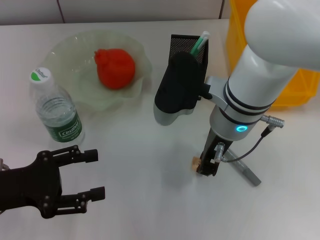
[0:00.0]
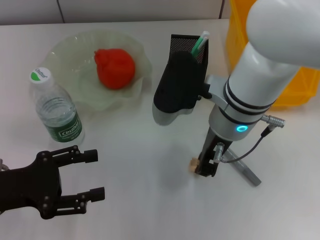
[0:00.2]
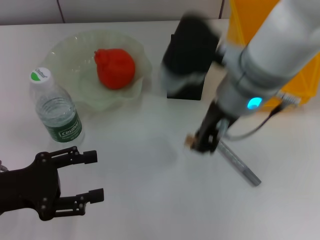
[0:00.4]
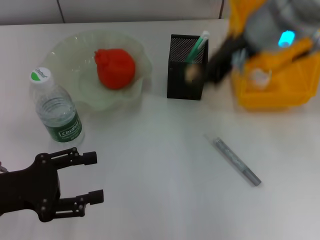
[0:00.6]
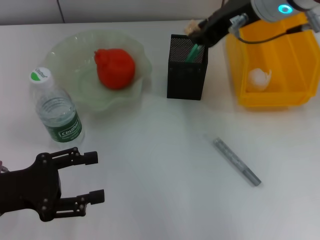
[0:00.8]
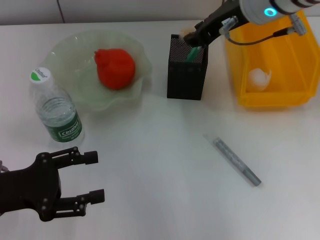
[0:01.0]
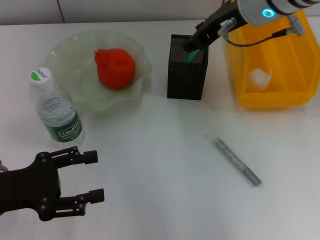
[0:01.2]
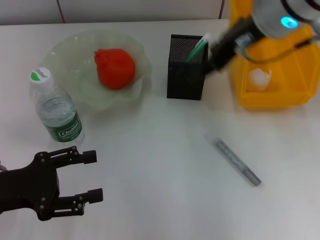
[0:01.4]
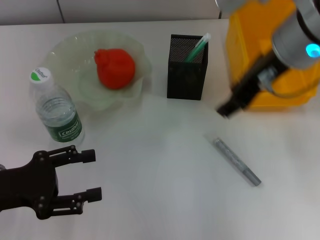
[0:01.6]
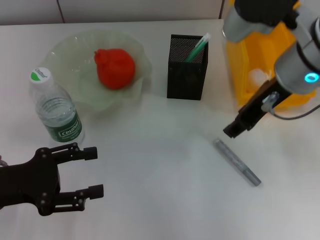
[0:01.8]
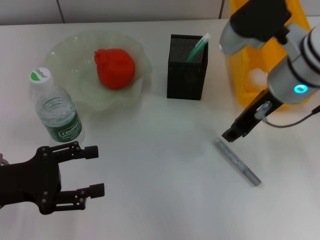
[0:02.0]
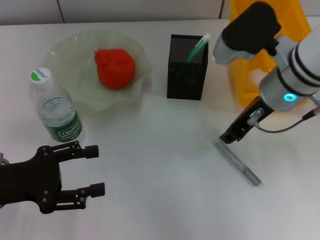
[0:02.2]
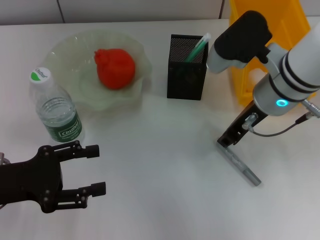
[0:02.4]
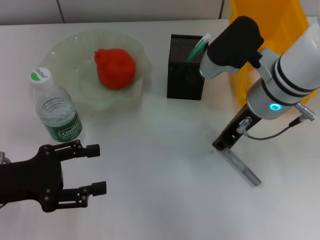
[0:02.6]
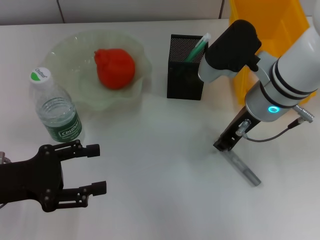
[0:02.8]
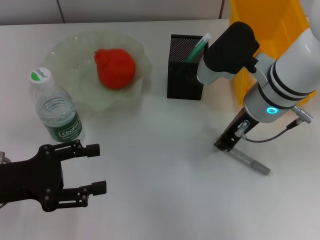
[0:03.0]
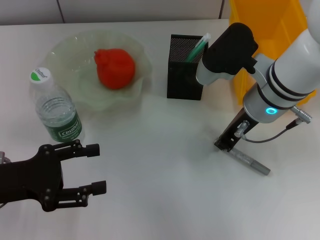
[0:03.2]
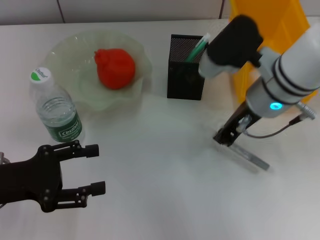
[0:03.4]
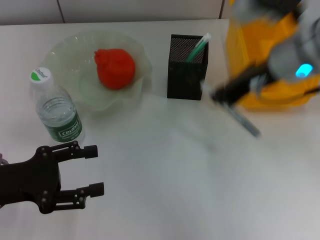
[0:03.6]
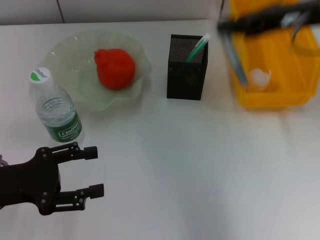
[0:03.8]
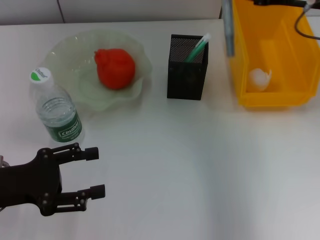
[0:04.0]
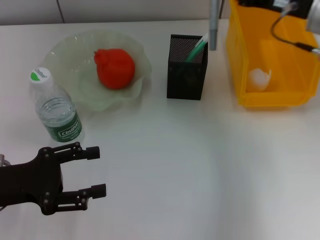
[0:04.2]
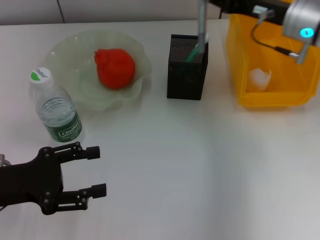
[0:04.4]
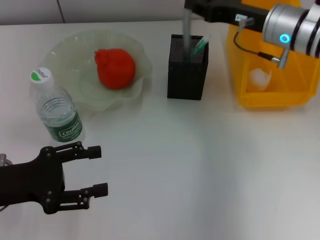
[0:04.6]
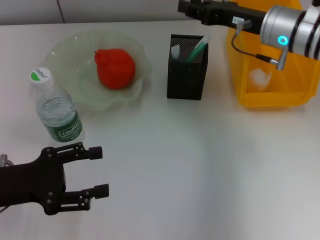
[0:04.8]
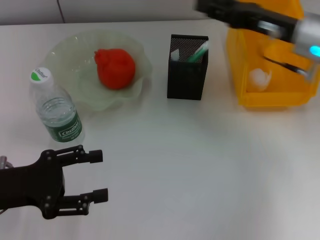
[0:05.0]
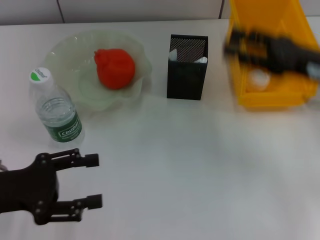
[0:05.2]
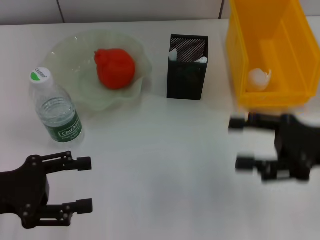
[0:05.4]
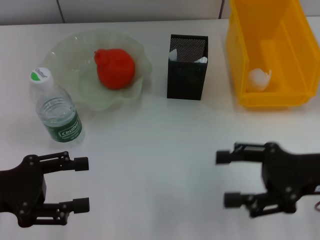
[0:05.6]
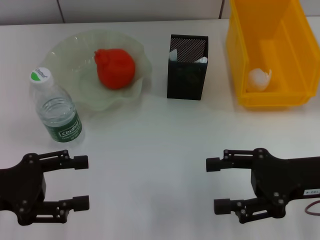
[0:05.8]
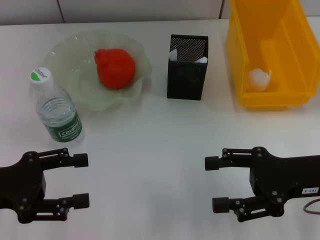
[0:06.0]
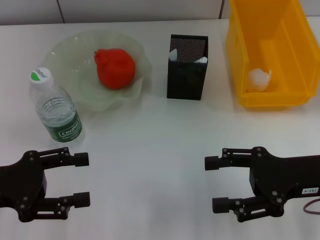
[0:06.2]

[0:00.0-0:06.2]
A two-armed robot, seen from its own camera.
Step, 0:00.0 to 0:01.0: Put the eraser into the pen holder with the right hand.
Step, 0:01.2 to 0:03.2: Grab the gray glue with the right hand.
Step, 0:03.4 to 0:04.6: Place the gray glue into the pen holder with the right hand.
0:00.0 to 0:01.6: The right gripper goes about 15 cm upward and to the right, and opens its fingers.
0:01.6 to 0:03.2: The right gripper moves downward, roughly 10 cm, and closes.
0:03.2 to 0:04.6: The right gripper moves forward and to the right, some 10 cm, and moves some 10 cm upward and comes back.
0:04.6 to 0:06.2: The right gripper travels backward by about 20 cm, and opens up.

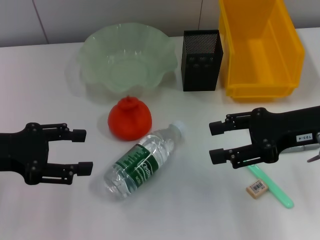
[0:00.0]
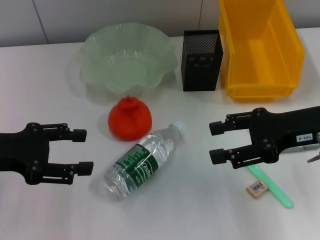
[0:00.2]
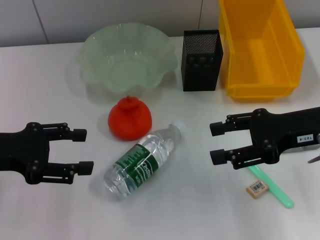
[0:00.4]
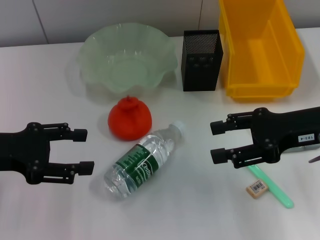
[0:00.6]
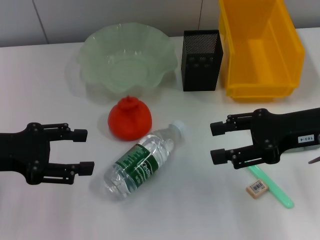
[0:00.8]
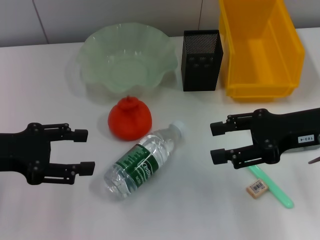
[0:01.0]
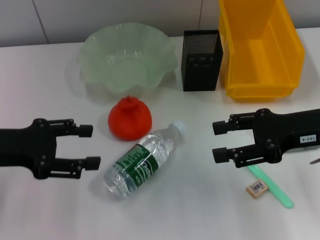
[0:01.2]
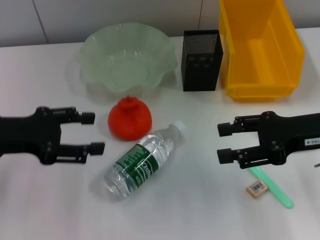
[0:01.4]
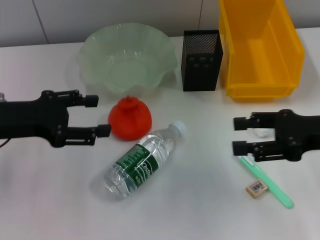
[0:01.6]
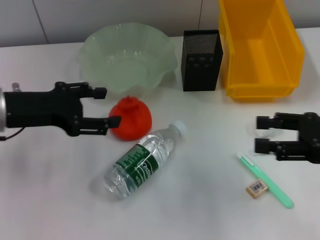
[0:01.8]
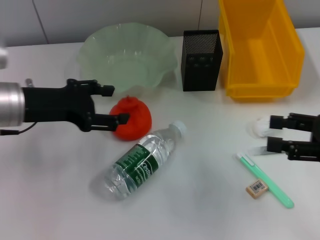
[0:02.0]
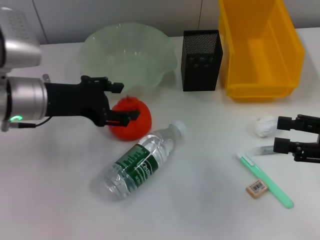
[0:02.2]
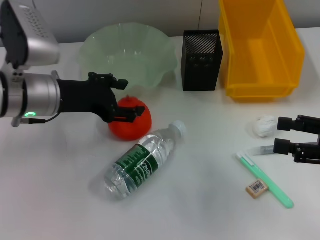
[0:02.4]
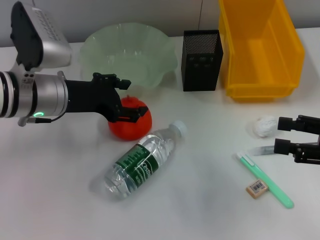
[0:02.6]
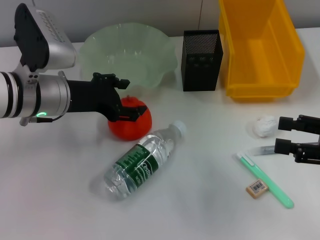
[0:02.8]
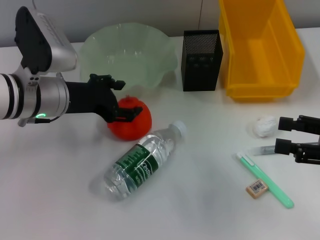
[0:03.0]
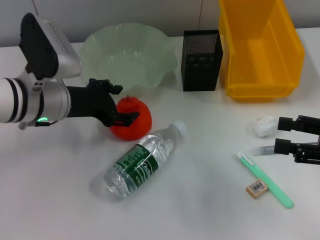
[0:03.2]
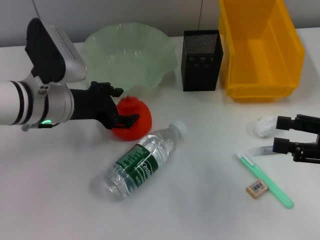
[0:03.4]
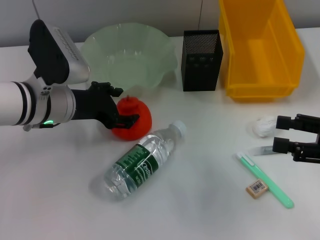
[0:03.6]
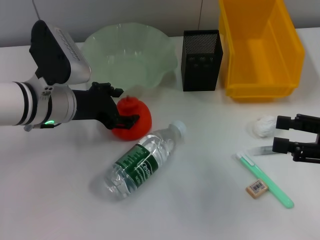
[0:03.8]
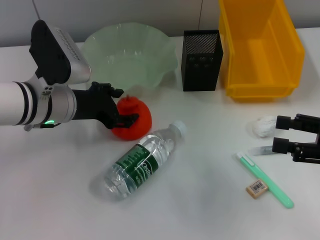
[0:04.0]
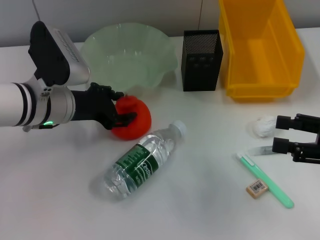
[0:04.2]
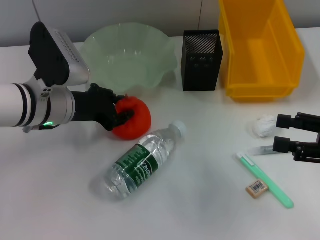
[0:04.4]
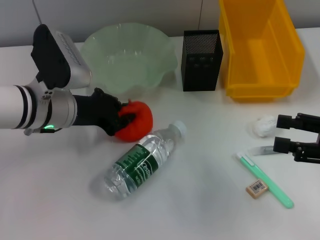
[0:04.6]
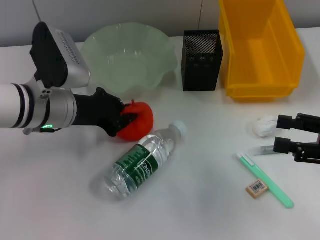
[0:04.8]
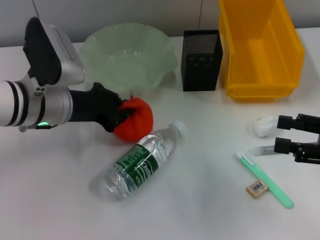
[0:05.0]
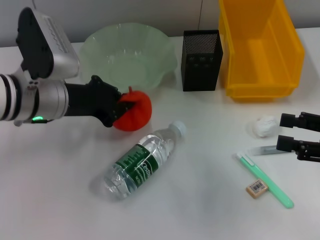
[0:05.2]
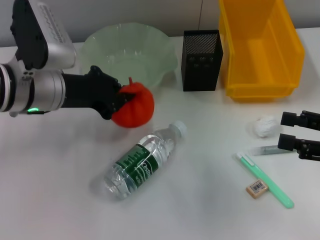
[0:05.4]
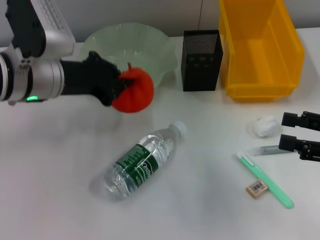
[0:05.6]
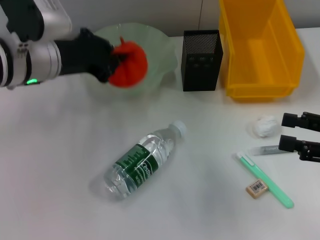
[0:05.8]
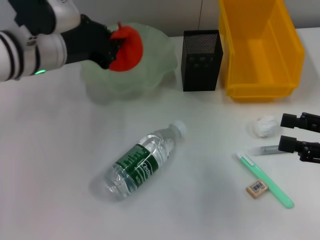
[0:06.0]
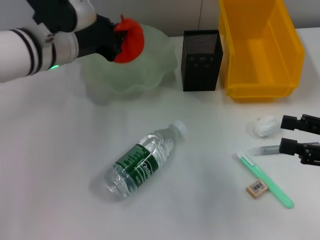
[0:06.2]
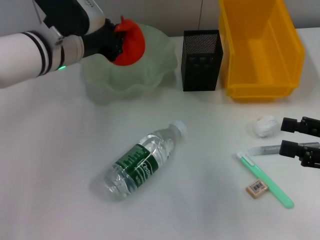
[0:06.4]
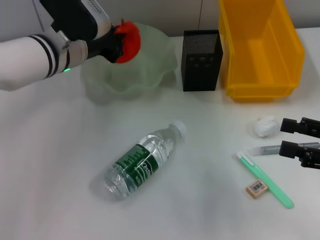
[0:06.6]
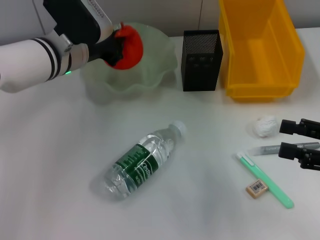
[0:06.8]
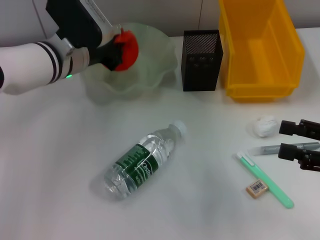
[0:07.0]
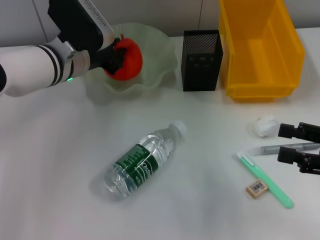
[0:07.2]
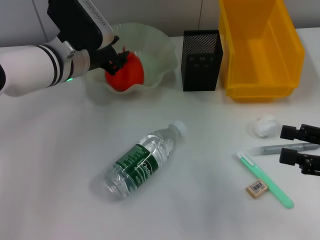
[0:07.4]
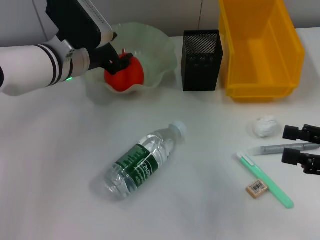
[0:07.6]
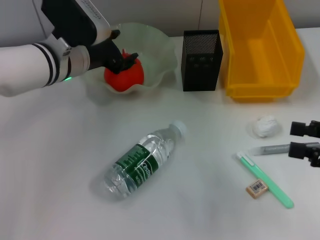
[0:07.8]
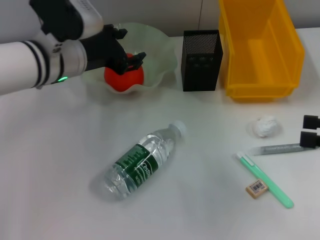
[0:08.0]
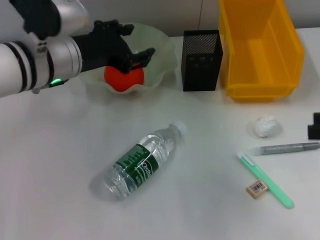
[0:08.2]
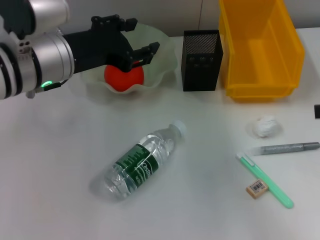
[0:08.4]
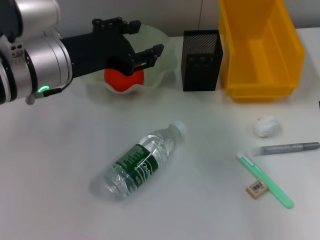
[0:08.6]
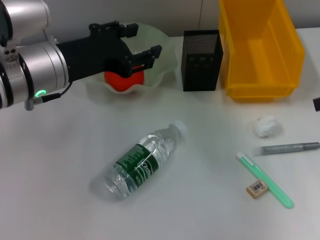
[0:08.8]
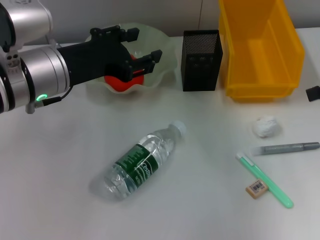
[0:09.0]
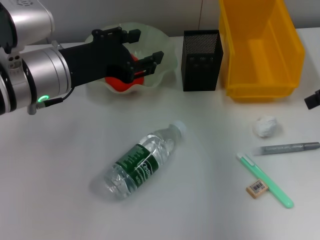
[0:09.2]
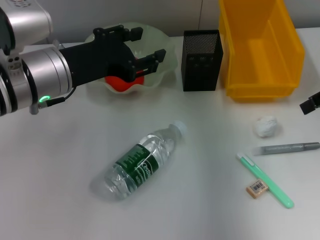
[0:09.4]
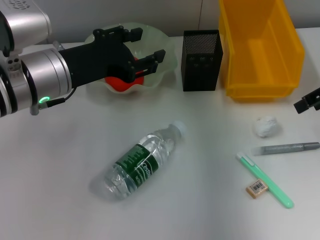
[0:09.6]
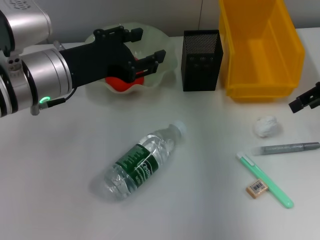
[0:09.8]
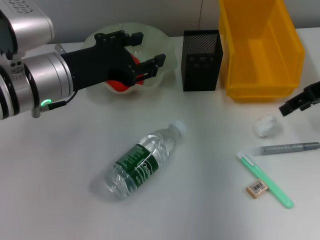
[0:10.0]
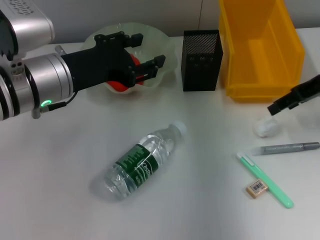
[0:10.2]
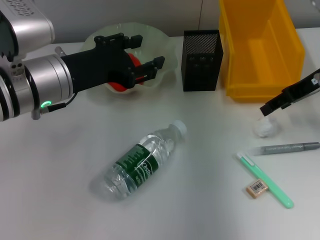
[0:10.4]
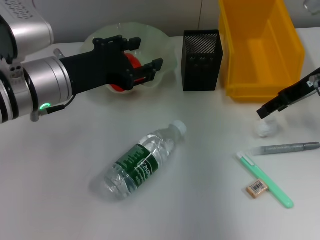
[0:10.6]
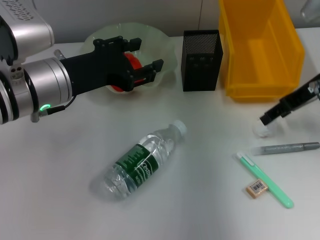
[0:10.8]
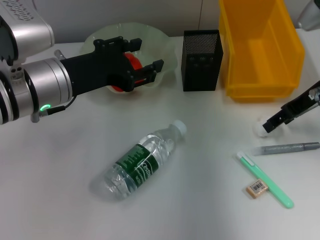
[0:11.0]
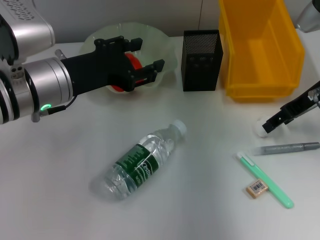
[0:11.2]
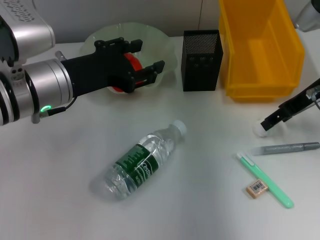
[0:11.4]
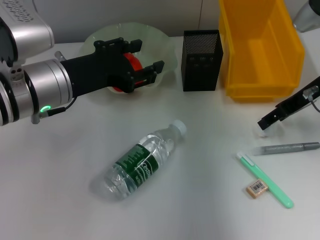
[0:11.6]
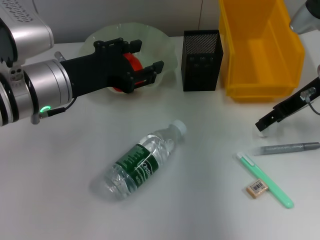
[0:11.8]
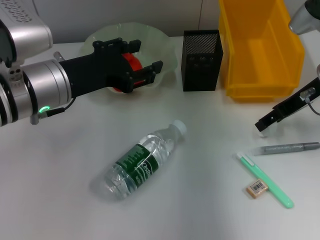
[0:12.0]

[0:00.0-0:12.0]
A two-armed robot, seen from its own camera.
Step, 0:00.0 to 0:04.8: Grab the orange with the left hand.
Step, 0:05.0 to 0:07.6: Place the orange into the fruit bowl with the left hand.
0:00.0 to 0:01.6: There are only small adjustments of the grippers.
0:01.6 to 0:03.0: The left gripper shifts approximately 10 cm to the right and forward. Meanwhile the right gripper moves roughly 5 cm.
0:03.0 to 0:04.4: There are only small adjustments of the grippers.
0:04.4 to 0:06.0: The left gripper goes about 5 cm upward, and closes up.
0:06.0 to 0:07.6: The left gripper moves about 5 cm, and opens.
0:07.6 to 0:09.0: The left gripper goes roughly 10 cm backward and upward, while the right gripper shifts approximately 15 cm forward and upward.
0:09.0 to 0:10.4: The right gripper travels to the left, forward and downward by approximately 10 cm.
0:10.4 to 0:12.0: The grippers make only small movements.

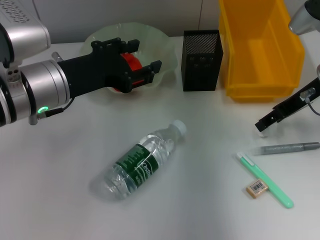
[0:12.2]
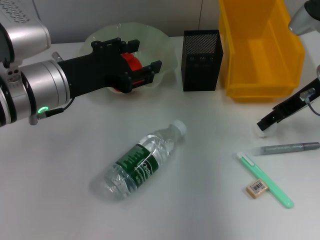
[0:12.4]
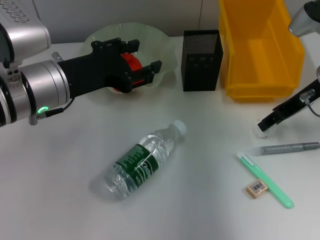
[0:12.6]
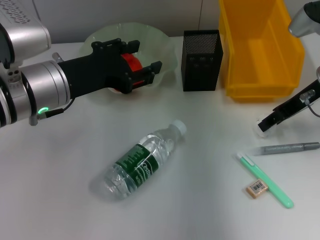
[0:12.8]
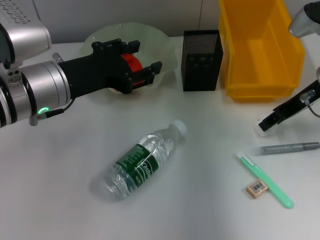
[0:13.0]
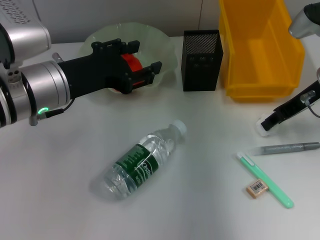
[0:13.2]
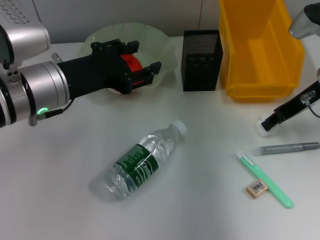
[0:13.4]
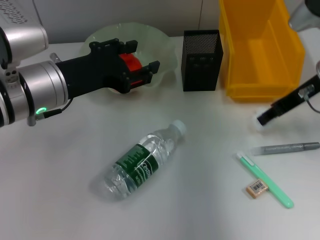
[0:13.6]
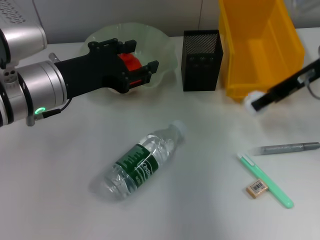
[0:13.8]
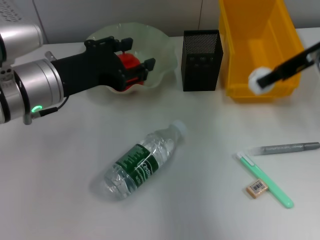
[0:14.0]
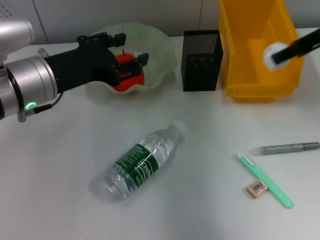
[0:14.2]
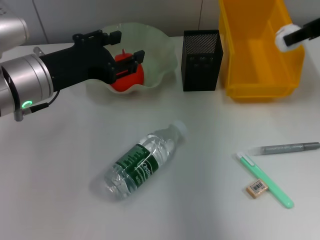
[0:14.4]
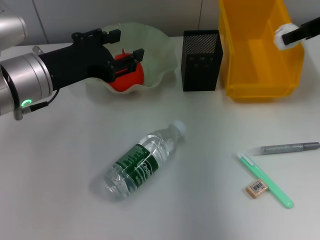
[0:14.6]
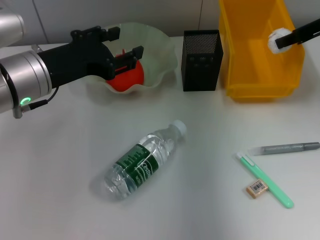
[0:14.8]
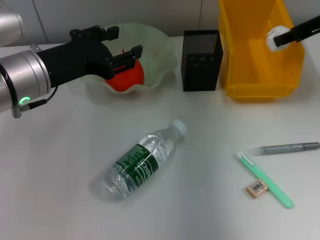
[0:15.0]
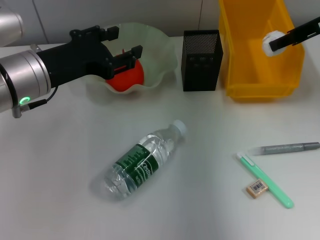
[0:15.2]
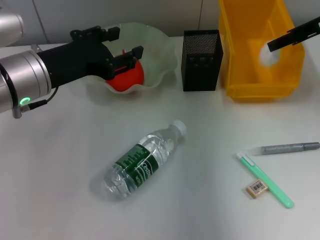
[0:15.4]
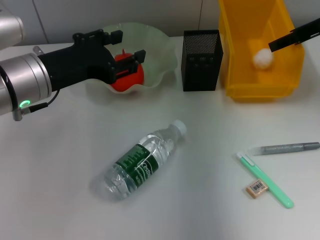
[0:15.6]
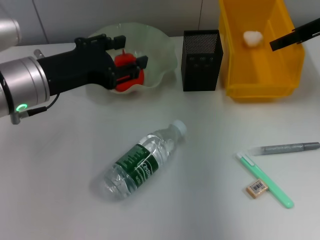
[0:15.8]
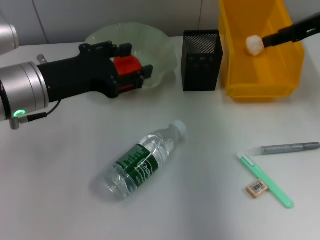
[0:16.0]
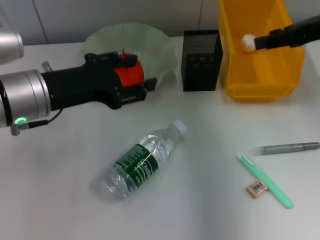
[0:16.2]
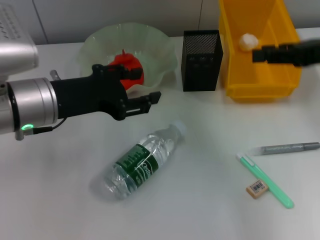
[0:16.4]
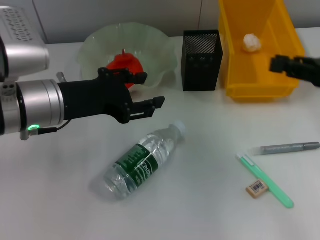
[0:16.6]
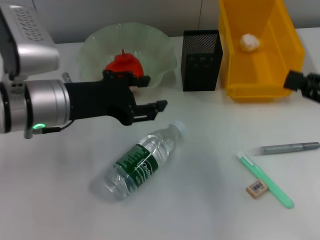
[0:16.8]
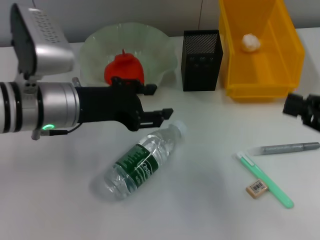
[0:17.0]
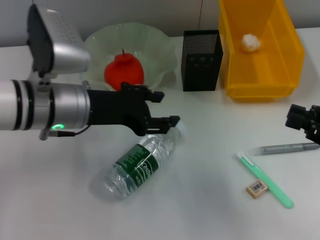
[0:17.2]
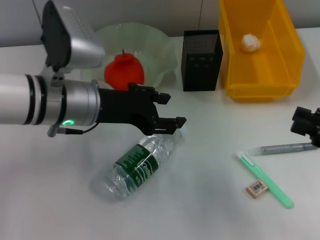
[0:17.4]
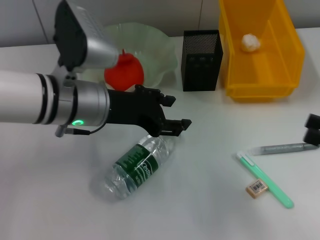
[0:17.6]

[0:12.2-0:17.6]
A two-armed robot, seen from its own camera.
Step, 0:13.4 to 0:15.4: Place the paper ball into the trash can with the right hand.
0:12.2 to 0:13.6: The right gripper closes its fingers.
0:13.6 to 0:15.0: The right gripper shifts about 5 cm upward.
0:15.0 to 0:16.2: The right gripper shifts approximately 5 cm backward, and opens up.
0:16.2 to 0:17.6: The left gripper shifts some 5 cm to the right; the right gripper travels backward and downward by about 20 cm, and closes its fingers.
